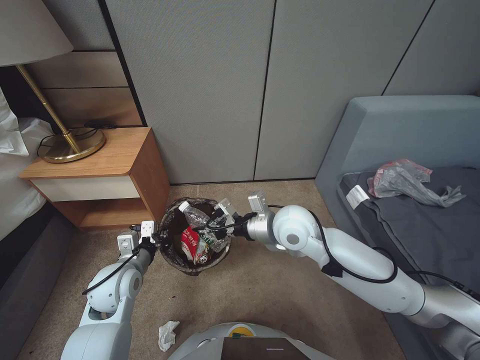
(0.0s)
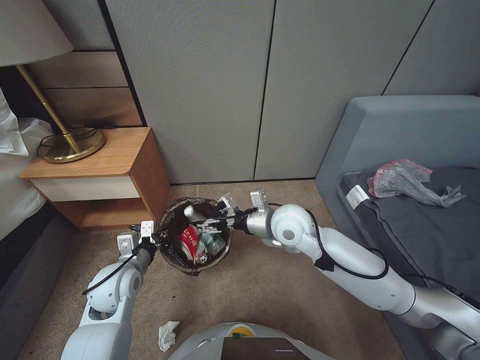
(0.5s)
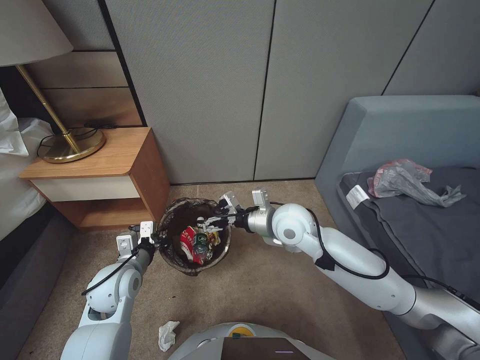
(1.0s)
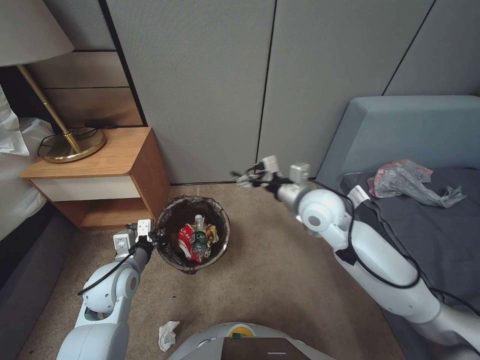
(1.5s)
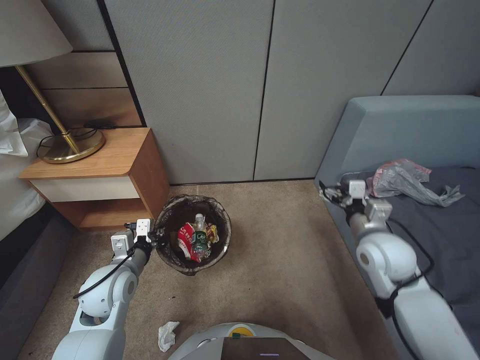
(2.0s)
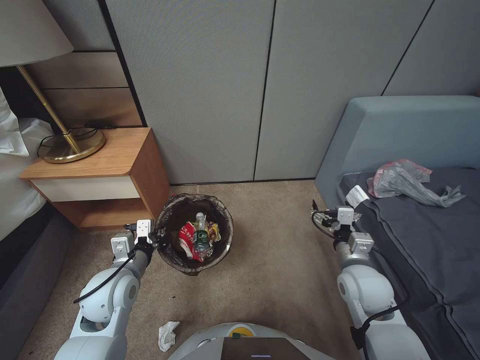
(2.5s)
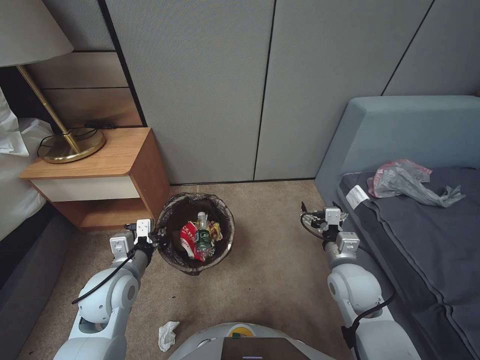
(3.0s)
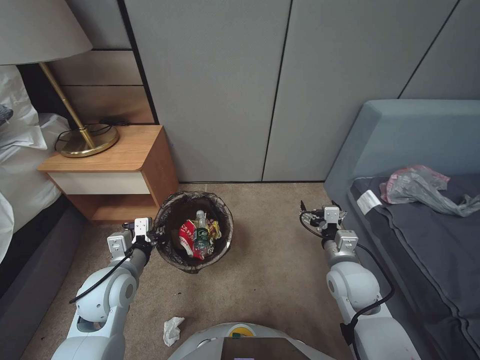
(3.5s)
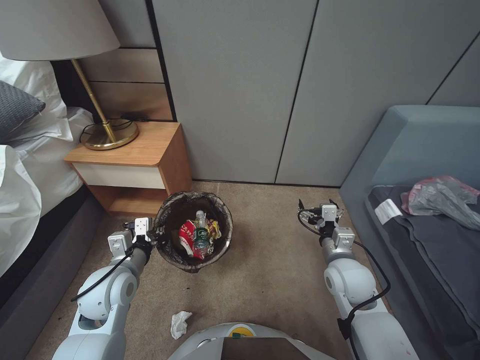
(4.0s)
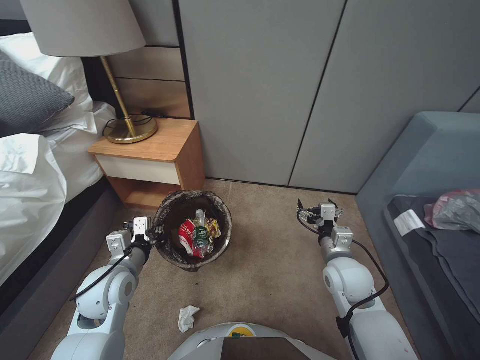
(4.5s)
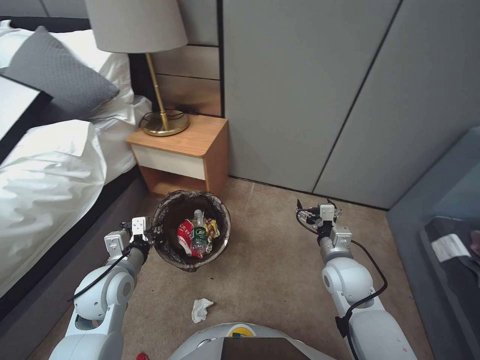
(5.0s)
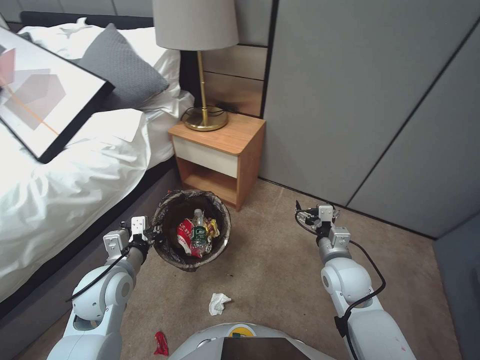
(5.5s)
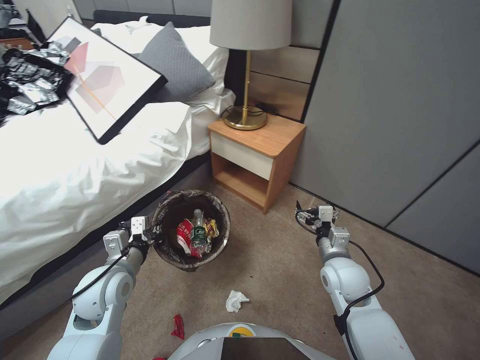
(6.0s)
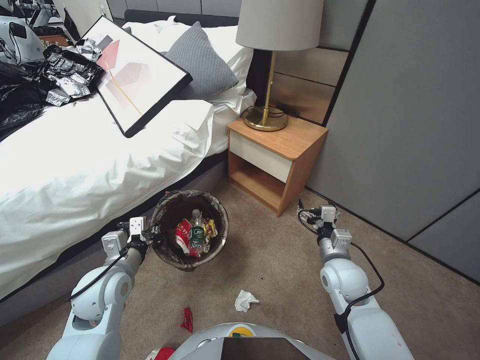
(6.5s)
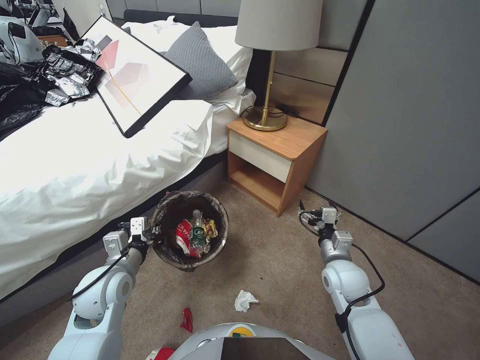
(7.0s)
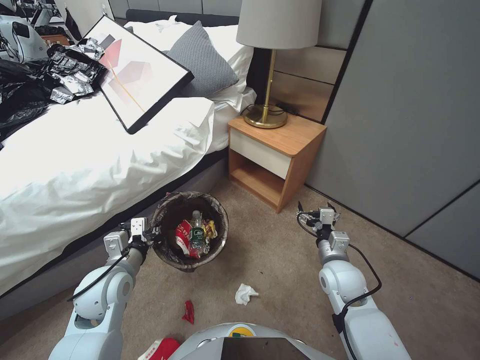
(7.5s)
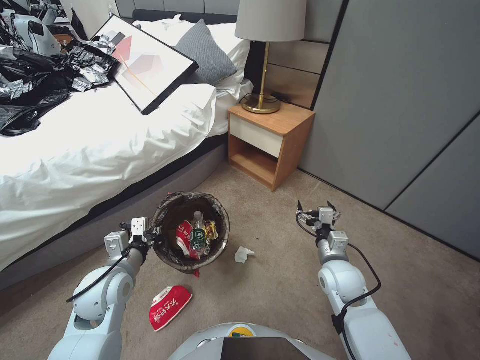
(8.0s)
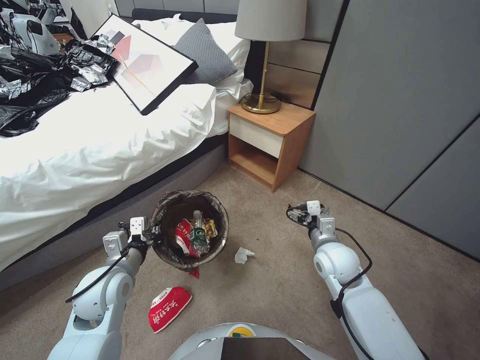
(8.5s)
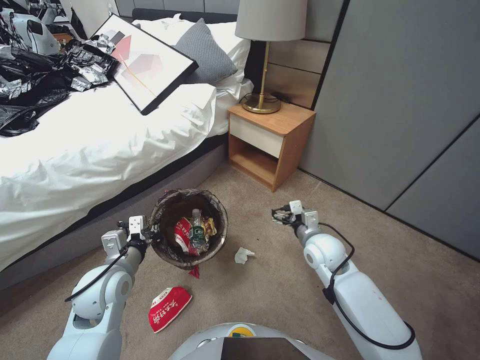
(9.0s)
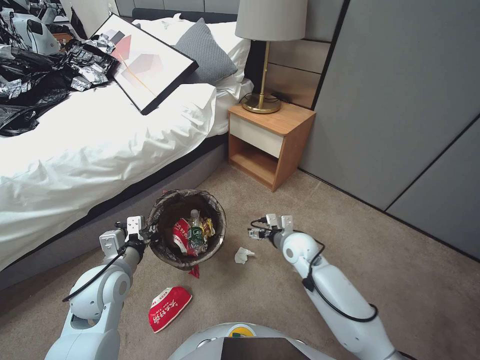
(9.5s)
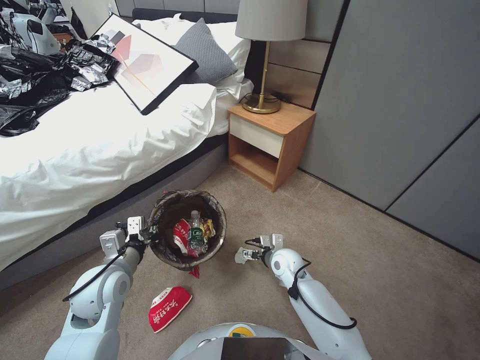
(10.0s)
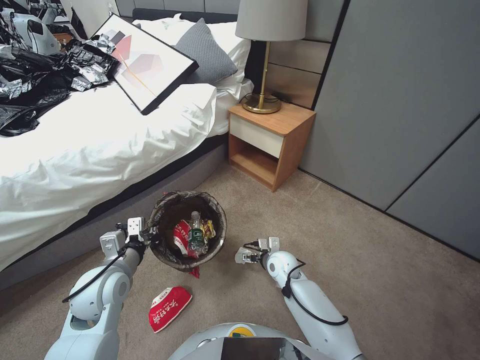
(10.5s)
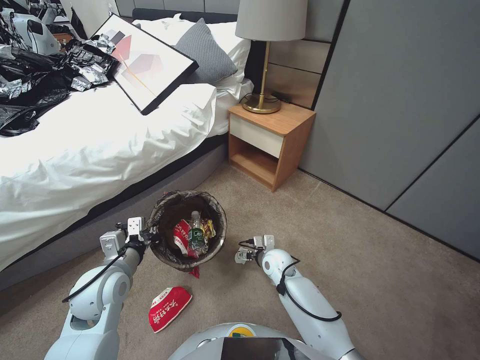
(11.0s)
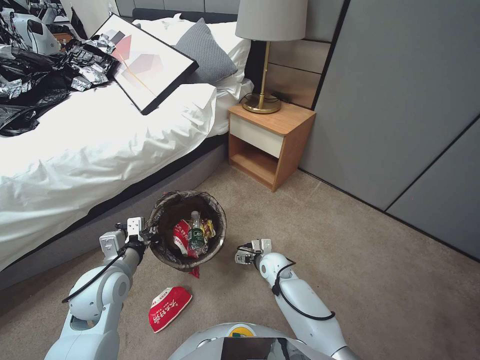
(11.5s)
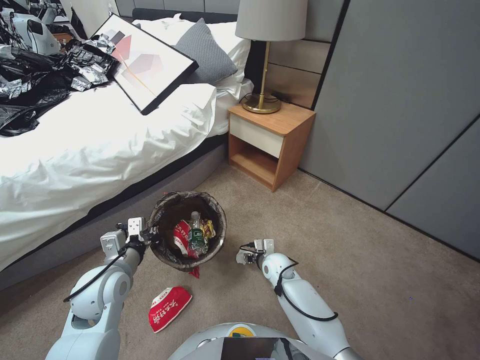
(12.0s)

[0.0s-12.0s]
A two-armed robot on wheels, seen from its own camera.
Task of the whole recording: Pick up the trash bin, then pick up the garbage from the floor and place it into the trash bin.
0.0s to 2.0s: The right gripper moves to the right, about 10 cm, and opens.
2.0s to 4.0s: The right gripper shifts roughly 15 cm downward and backward.
8.0s to 10.0s: The right gripper heads to the left, downward and forward, covering some 15 cm.
10.0s to 12.0s: The right gripper shifts roughly 5 cm downward, and closes up.

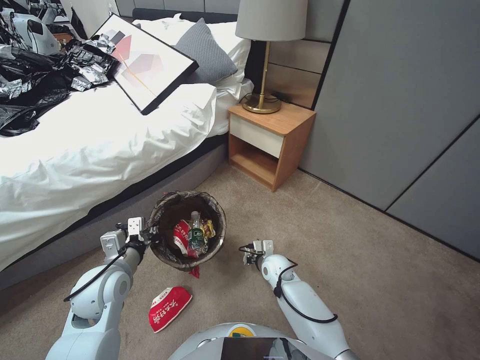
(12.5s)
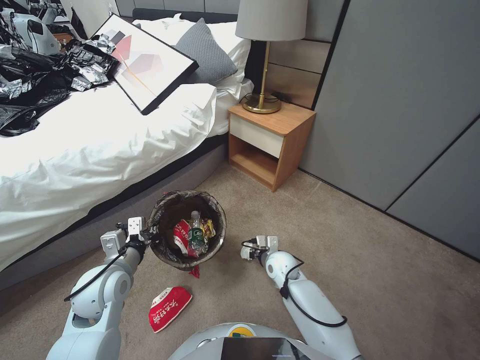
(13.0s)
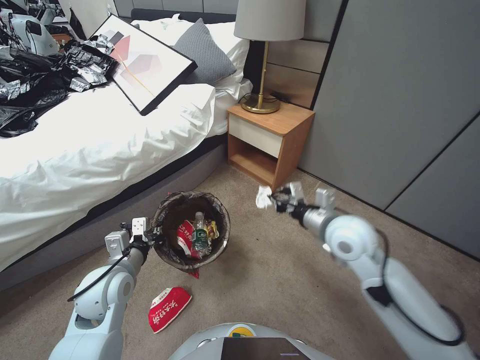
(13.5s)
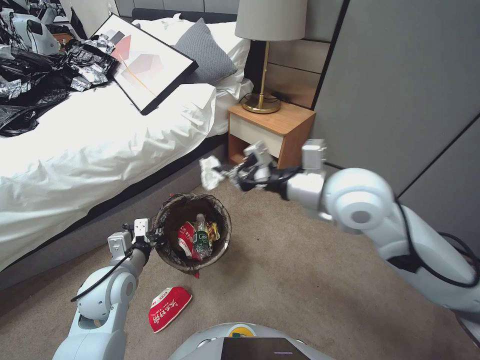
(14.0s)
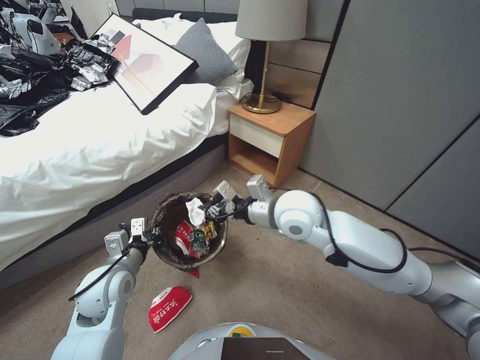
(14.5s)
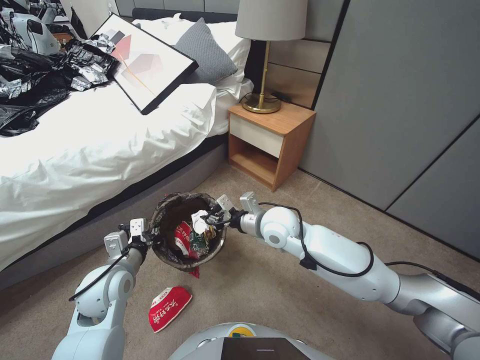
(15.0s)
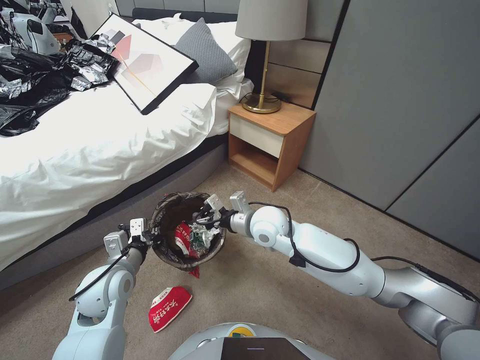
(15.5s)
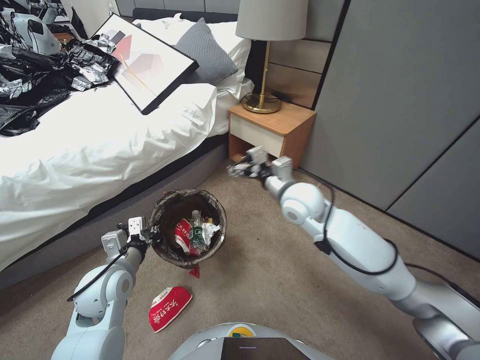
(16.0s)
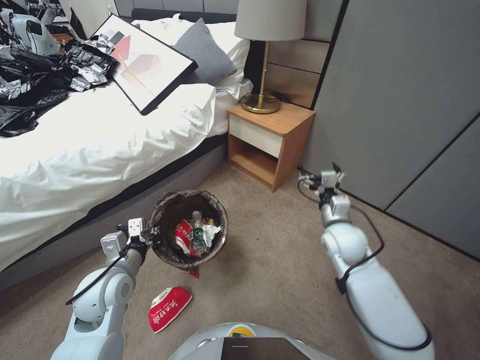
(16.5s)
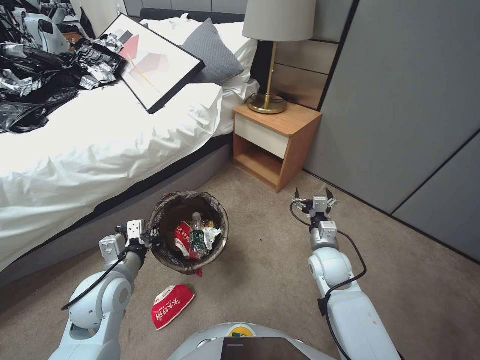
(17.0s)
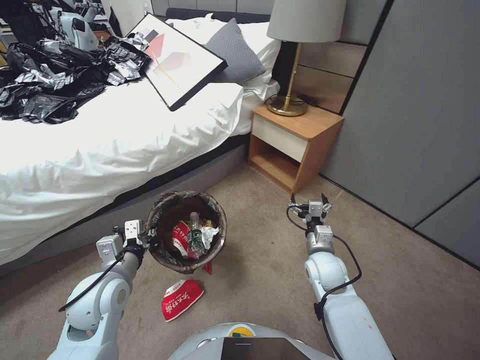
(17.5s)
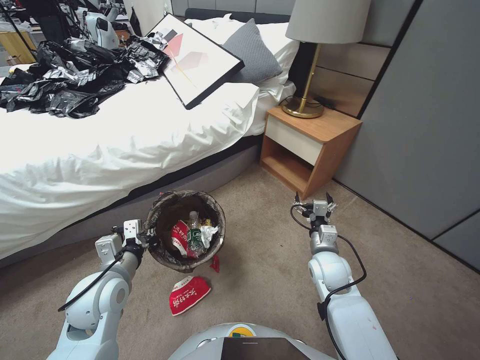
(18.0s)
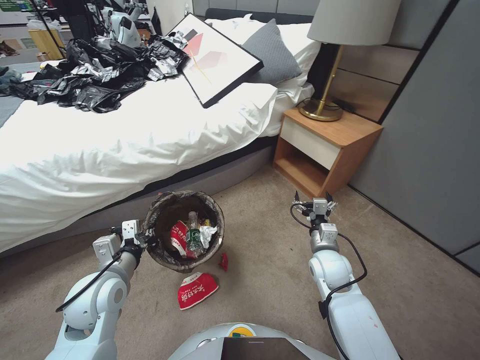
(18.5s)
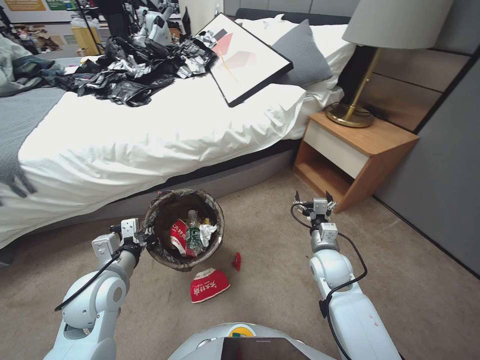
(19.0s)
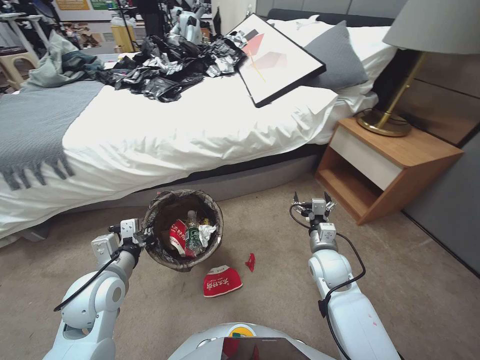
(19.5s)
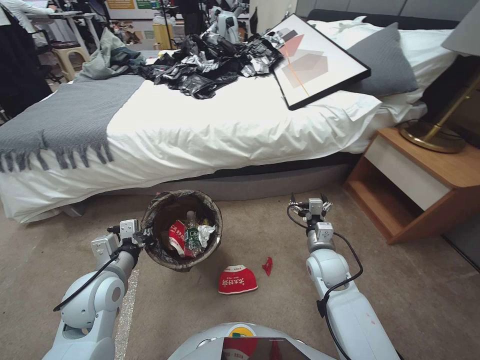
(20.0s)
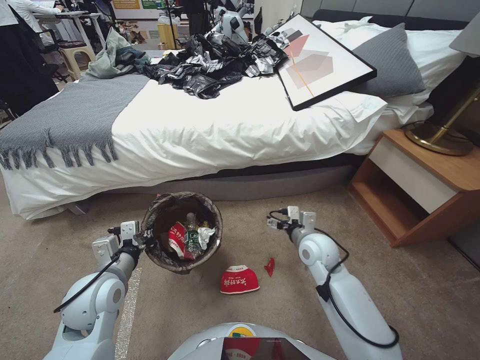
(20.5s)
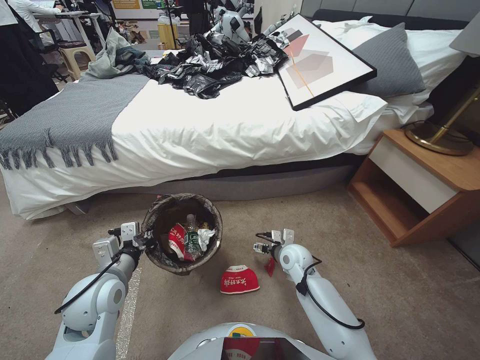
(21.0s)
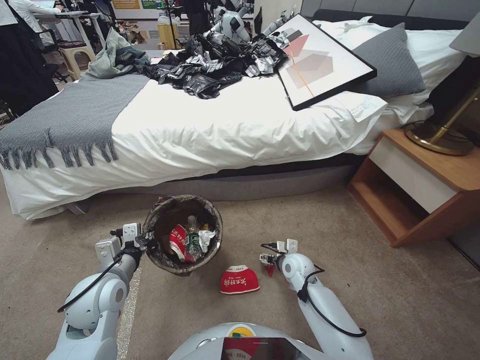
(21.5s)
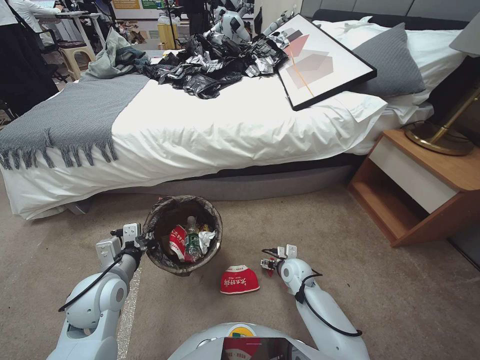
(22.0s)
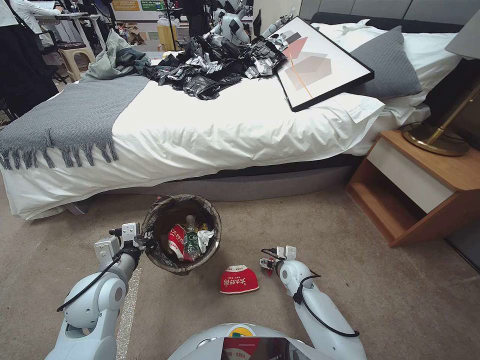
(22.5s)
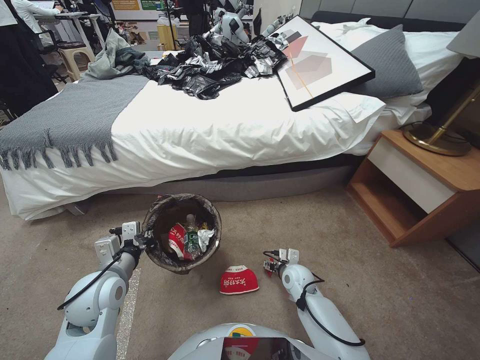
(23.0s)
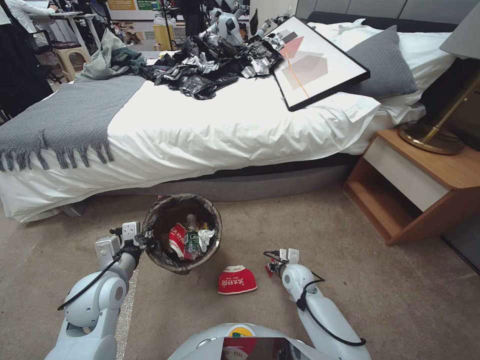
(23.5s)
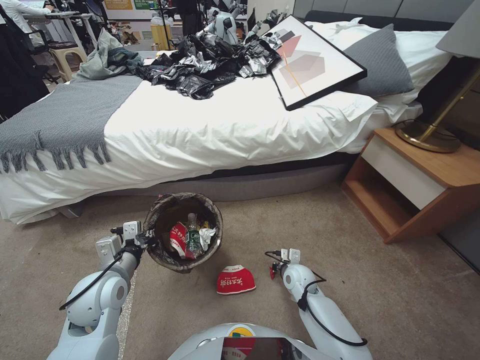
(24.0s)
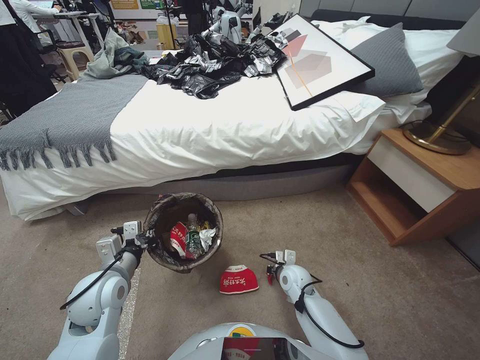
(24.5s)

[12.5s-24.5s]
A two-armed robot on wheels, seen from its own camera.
Task of the whole recording: Pick up the trash bin, then pick up the garbage from the floor and place it into the trash bin.
12.5s to 14.5s: The right gripper goes roughly 35 cm upward.
14.5s to 16.5s: The right gripper moves to the right and downward, about 20 cm, and opens.
16.5s to 18.5s: The right gripper heads downward, covering about 10 cm.
20.5s to 22.5s: The right gripper moves downward, roughly 20 cm.
22.5s to 24.5s: The right gripper closes up.

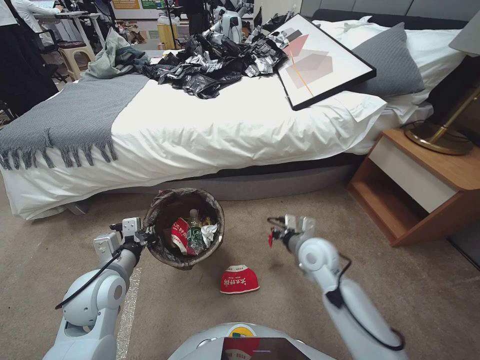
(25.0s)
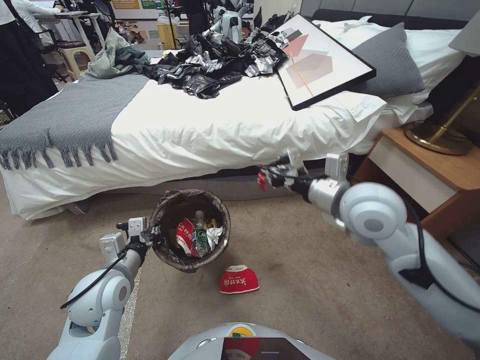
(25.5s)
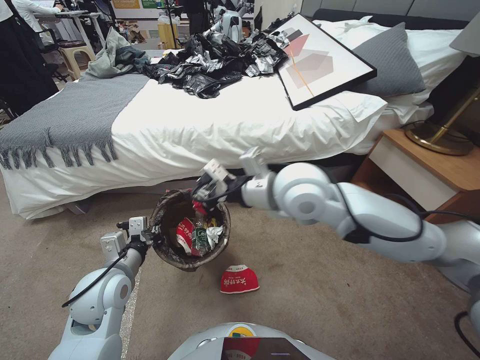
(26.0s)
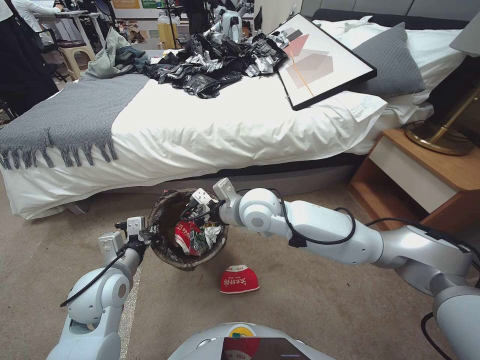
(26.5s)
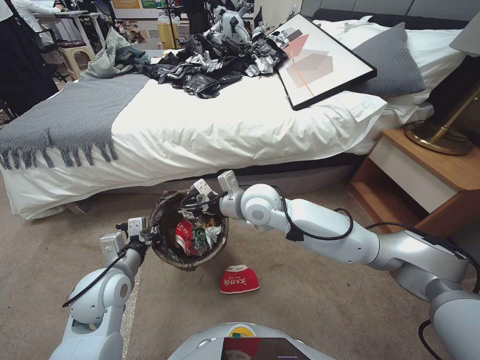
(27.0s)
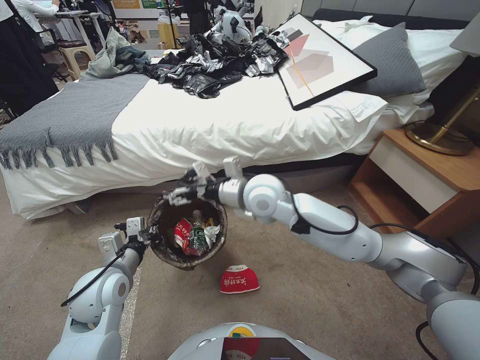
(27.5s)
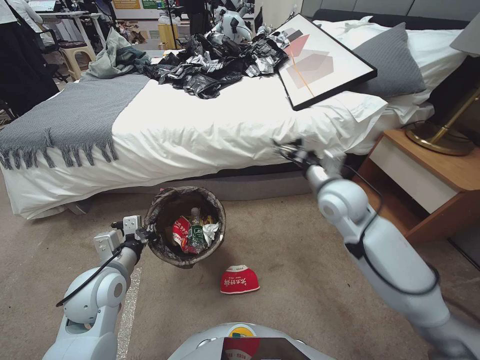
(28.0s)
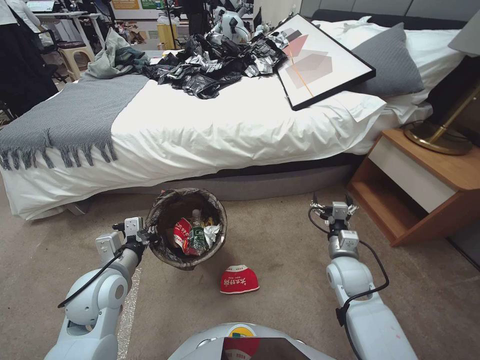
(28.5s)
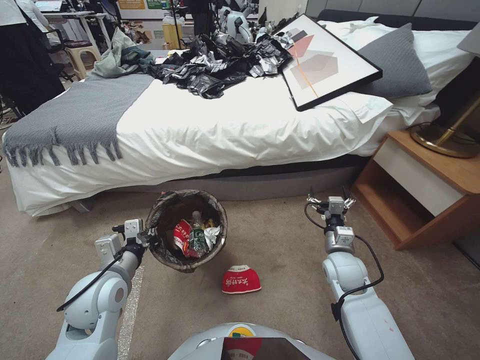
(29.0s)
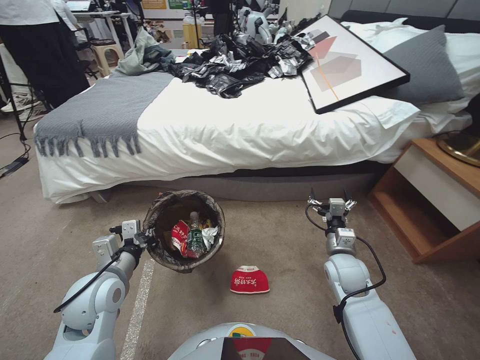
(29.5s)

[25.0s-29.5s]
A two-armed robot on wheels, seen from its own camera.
Task of the whole recording: Pick up the trash bin, then pick up the garbage from the floor and place it into the trash bin.
25.0s to 27.0s: The right gripper travels upward and to the left by about 35 cm.
27.0s to 29.5s: The right gripper goes approximately 30 cm to the right and downward, and opens its fingers.
